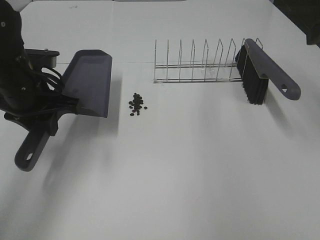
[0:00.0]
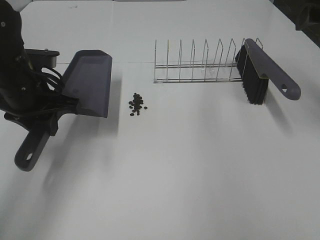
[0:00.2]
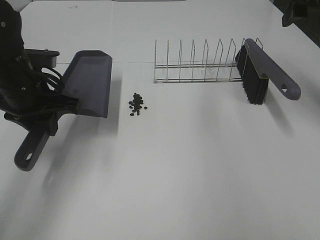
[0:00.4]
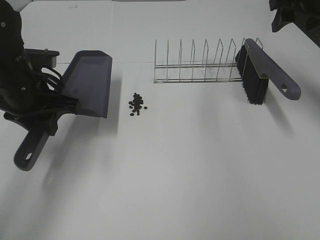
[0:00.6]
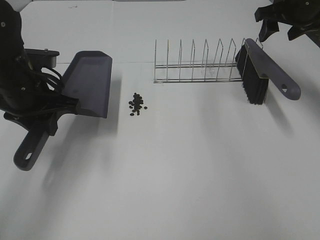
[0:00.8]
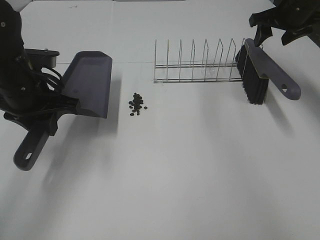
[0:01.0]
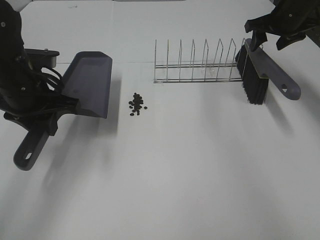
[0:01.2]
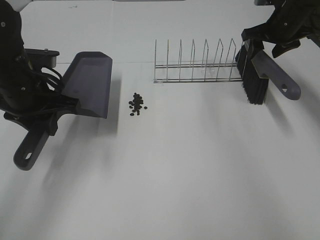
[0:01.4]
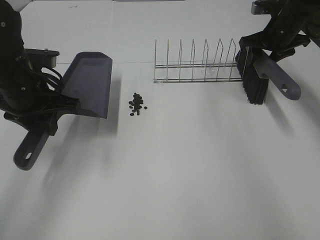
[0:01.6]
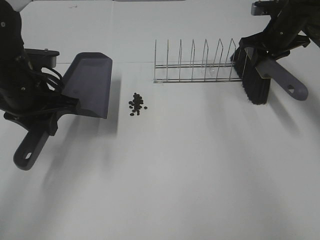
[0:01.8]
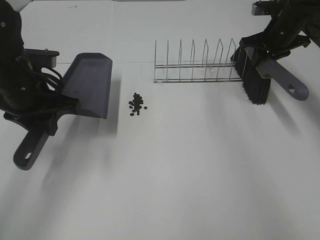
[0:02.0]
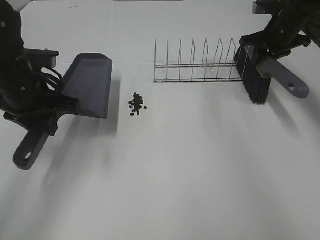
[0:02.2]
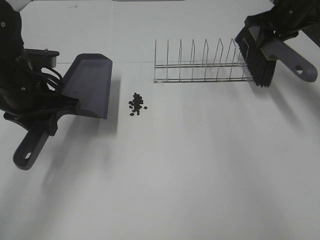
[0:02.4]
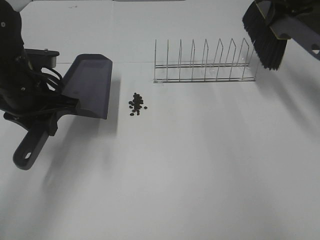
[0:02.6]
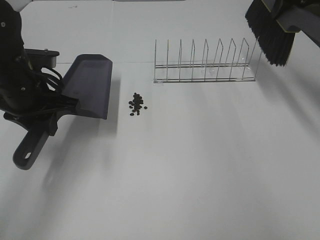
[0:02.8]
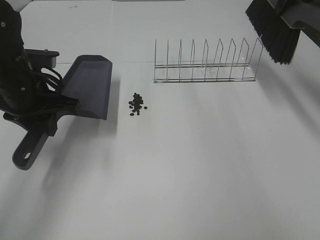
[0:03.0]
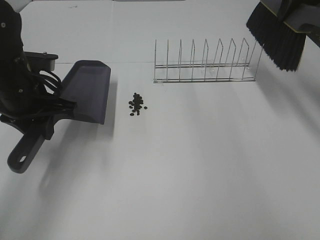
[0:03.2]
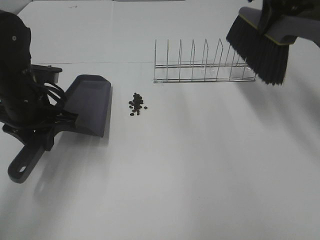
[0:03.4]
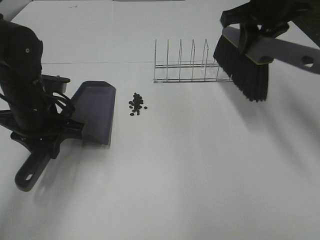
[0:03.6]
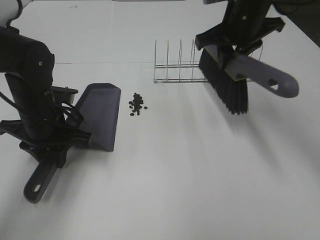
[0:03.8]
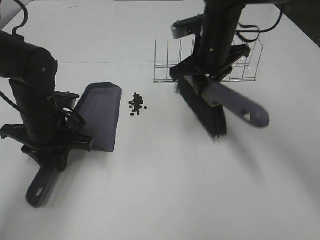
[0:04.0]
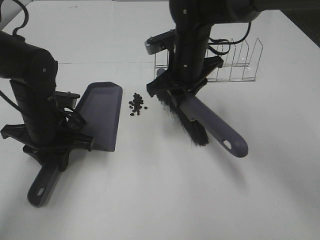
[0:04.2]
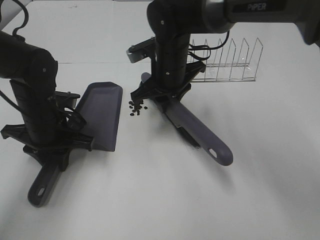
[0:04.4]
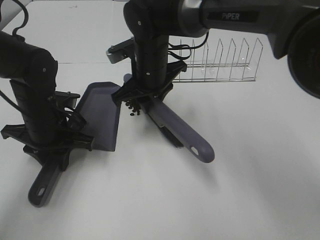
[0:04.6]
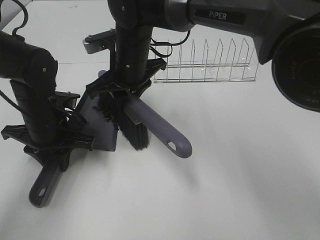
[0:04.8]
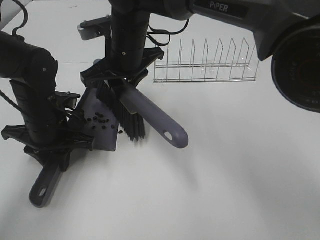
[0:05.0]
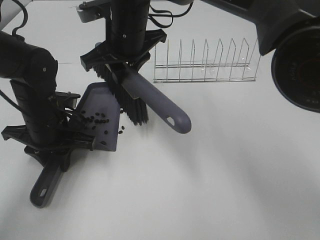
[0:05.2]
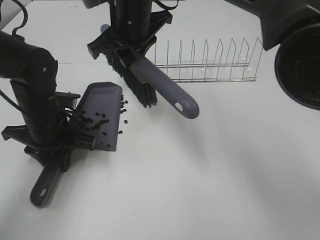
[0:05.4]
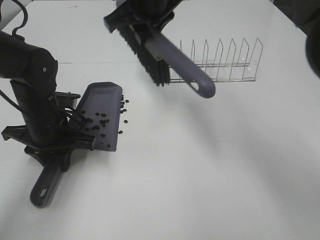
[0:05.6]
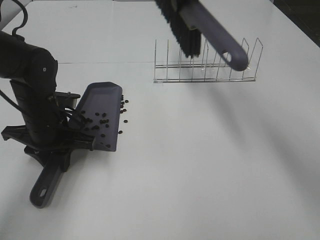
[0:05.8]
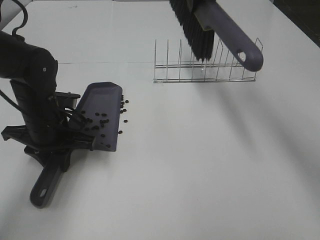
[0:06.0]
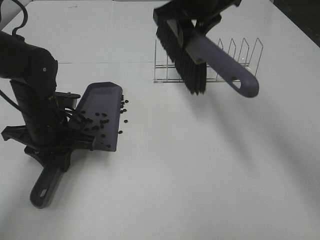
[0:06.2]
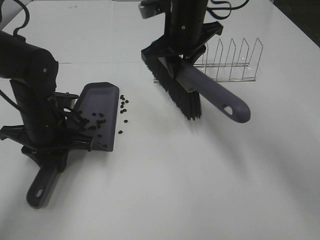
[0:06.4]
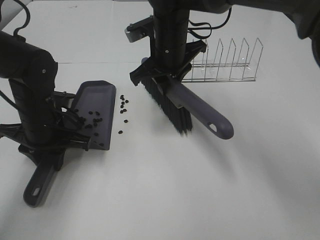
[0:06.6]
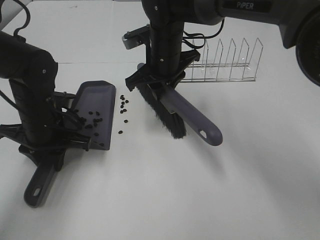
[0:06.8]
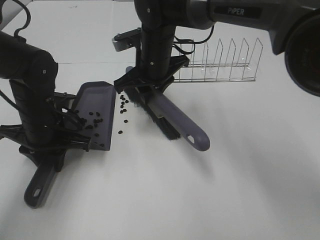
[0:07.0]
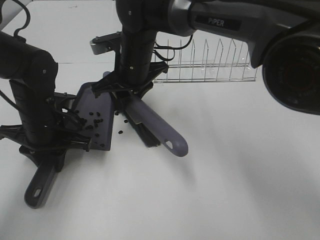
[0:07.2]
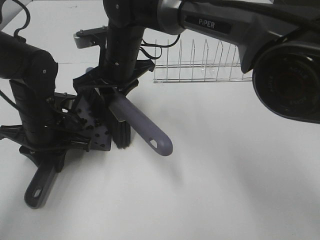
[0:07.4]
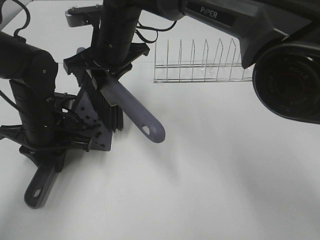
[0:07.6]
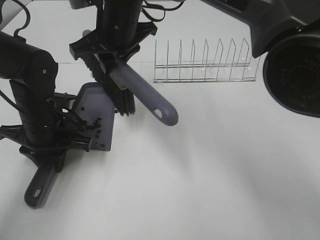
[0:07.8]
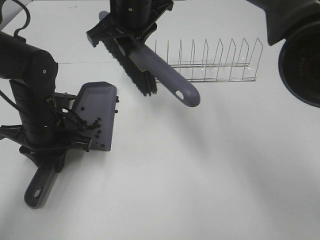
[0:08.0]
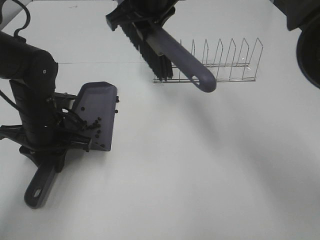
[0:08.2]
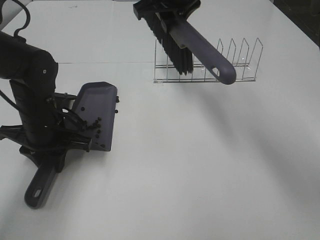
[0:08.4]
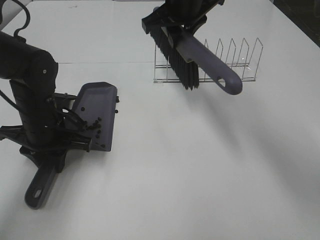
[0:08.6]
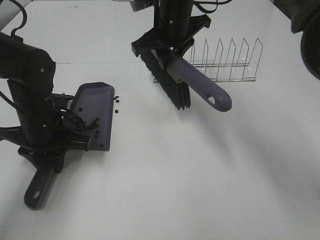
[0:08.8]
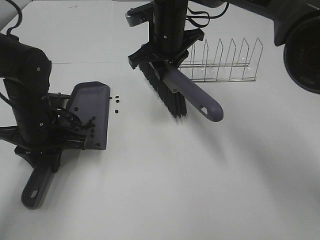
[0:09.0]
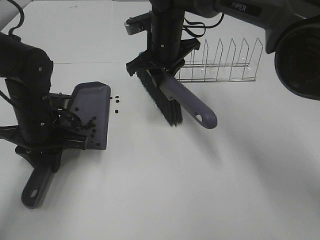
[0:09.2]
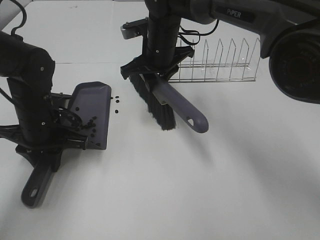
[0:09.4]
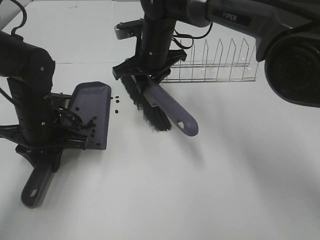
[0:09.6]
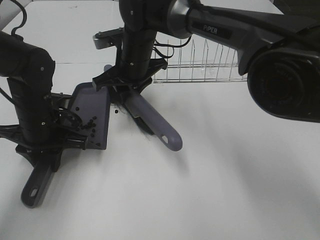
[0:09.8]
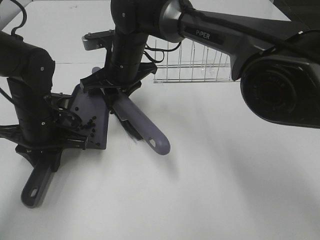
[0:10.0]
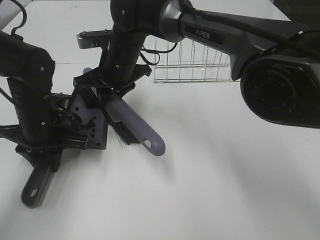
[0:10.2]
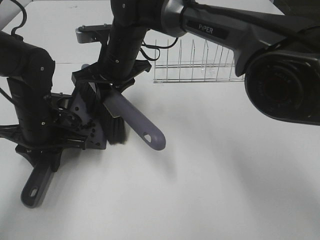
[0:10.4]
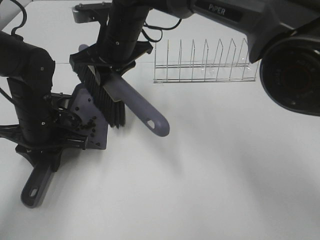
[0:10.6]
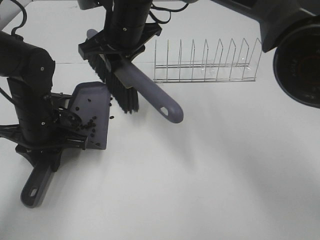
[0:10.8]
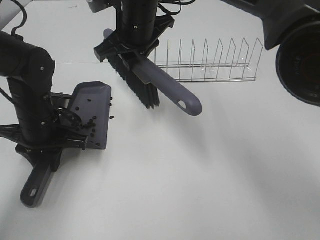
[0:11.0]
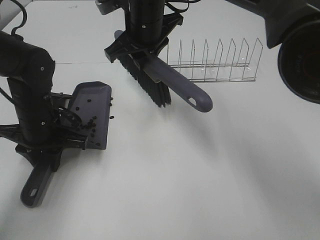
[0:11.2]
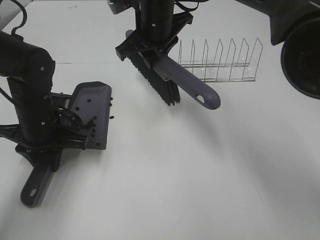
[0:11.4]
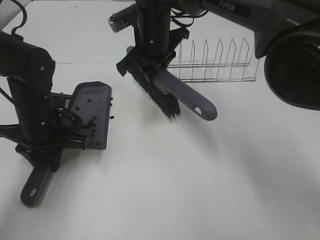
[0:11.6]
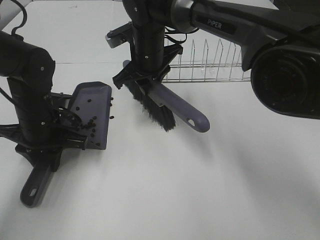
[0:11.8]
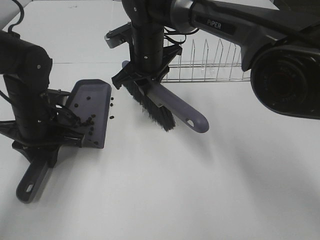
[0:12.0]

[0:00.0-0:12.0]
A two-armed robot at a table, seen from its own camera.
Task of the whole recording: Sweep Coffee Bean.
Step, 0:00.0 to 0:01.4: Right hand:grab the broom.
0:00.0 to 0:01.6: The right gripper heads forward and downward, covering approximately 25 cm.
0:01.6 to 0:03.0: The right gripper travels upward by some 15 cm, and closes its fingers.
0:03.0 to 0:04.4: The right gripper heads to the left and downward, covering roughly 30 cm. The left gripper is displaced downward by roughly 10 cm.
0:04.4 to 0:06.0: The right gripper travels upward and to the right by approximately 20 cm.
0:06.0 to 0:07.6: The right gripper is displaced to the left and downward by roughly 20 cm.
0:07.6 to 0:09.0: The right gripper is displaced to the right by approximately 10 cm.
0:09.0 to 0:10.4: The right gripper shifts about 10 cm to the left.

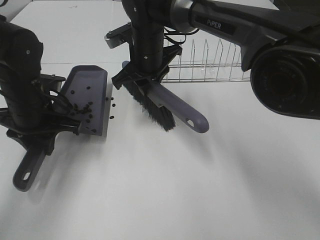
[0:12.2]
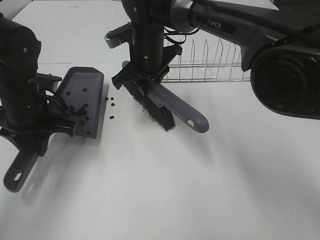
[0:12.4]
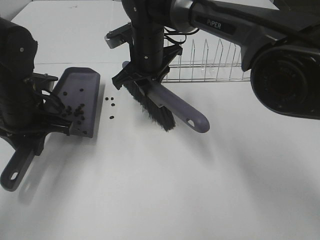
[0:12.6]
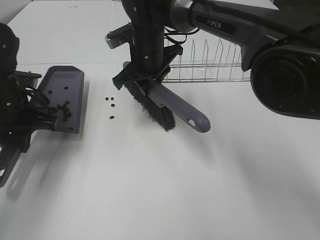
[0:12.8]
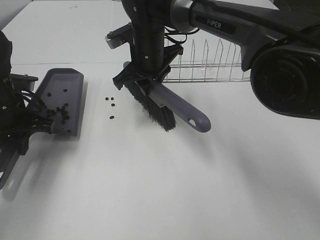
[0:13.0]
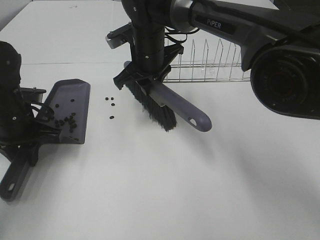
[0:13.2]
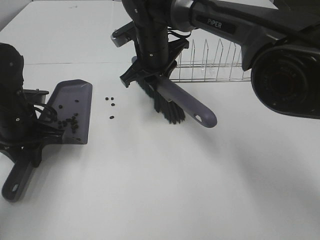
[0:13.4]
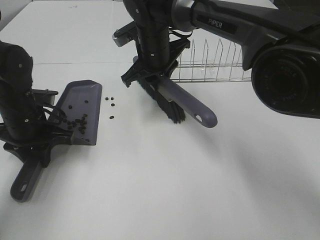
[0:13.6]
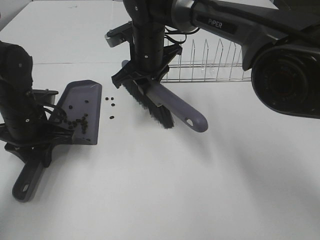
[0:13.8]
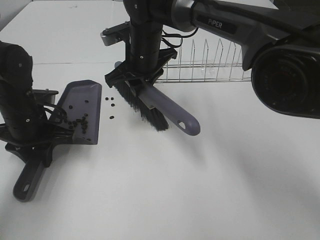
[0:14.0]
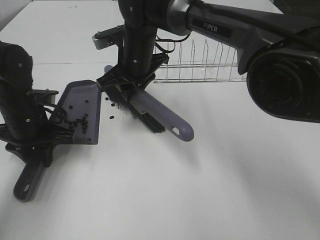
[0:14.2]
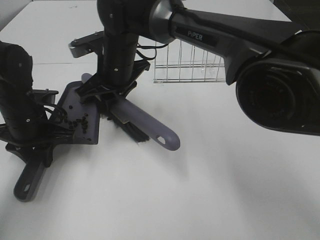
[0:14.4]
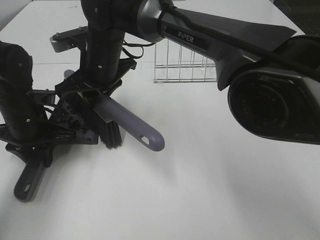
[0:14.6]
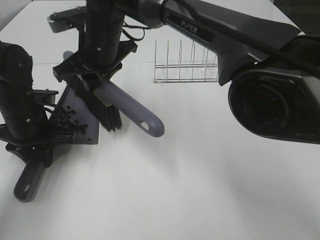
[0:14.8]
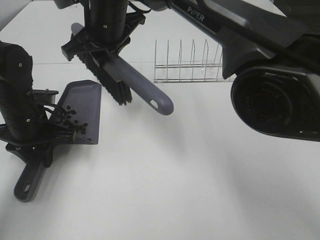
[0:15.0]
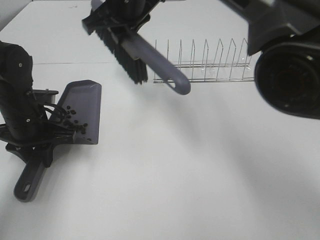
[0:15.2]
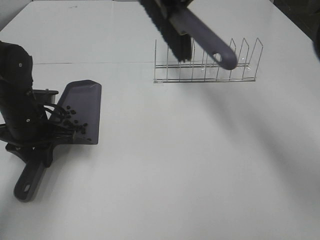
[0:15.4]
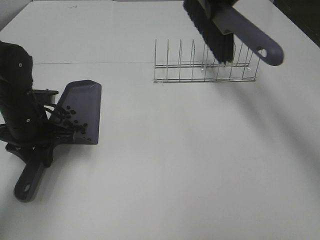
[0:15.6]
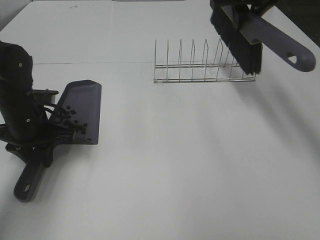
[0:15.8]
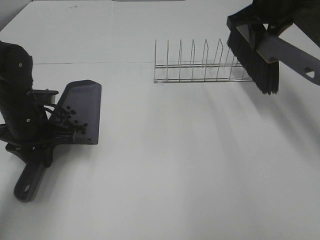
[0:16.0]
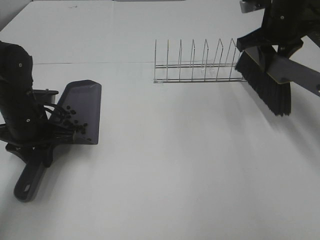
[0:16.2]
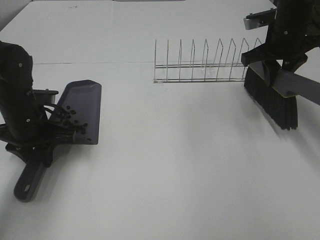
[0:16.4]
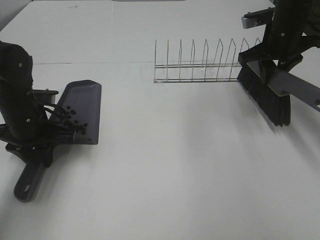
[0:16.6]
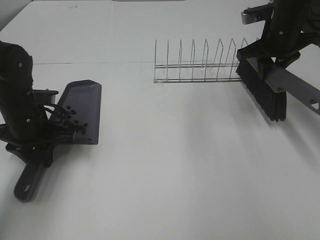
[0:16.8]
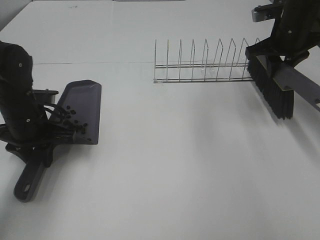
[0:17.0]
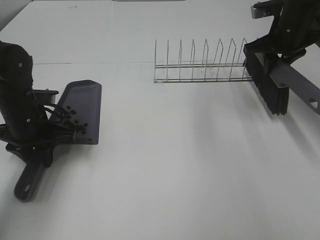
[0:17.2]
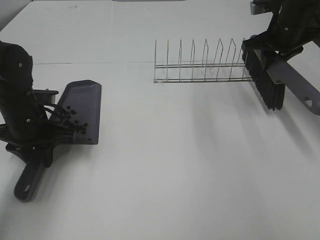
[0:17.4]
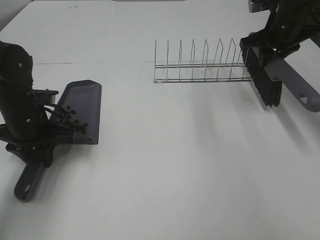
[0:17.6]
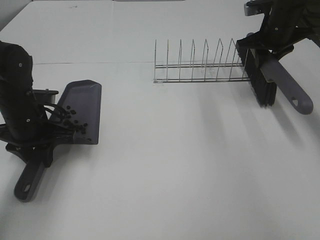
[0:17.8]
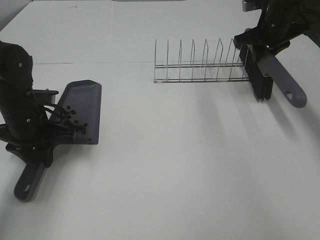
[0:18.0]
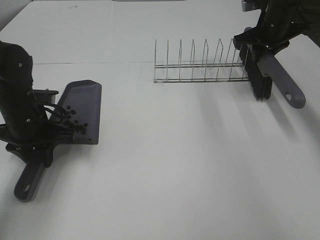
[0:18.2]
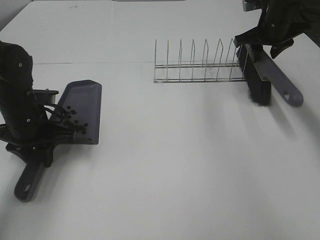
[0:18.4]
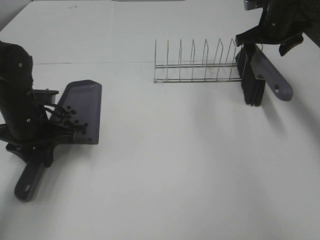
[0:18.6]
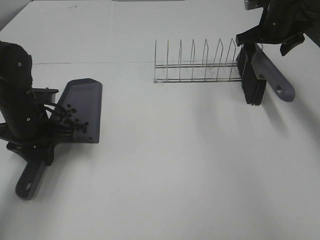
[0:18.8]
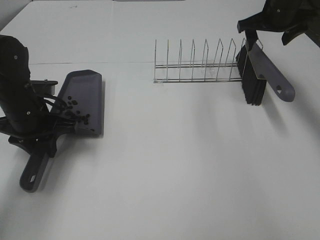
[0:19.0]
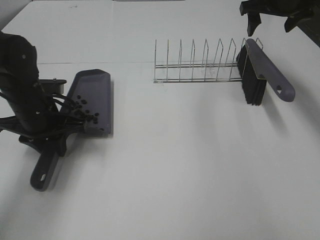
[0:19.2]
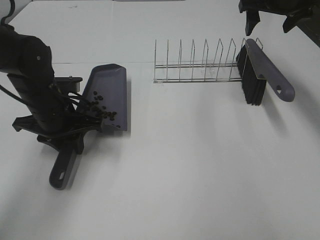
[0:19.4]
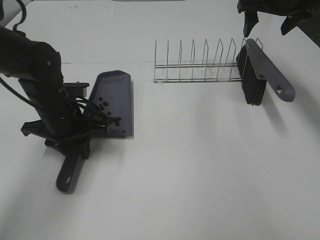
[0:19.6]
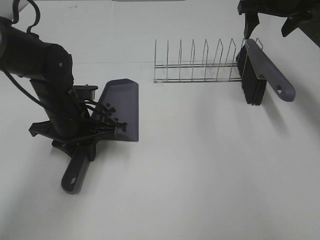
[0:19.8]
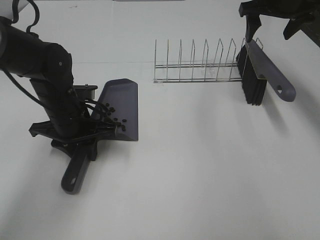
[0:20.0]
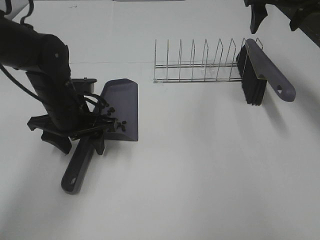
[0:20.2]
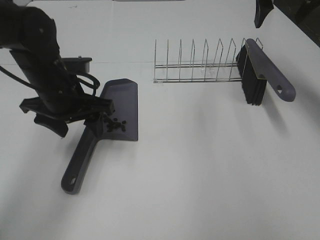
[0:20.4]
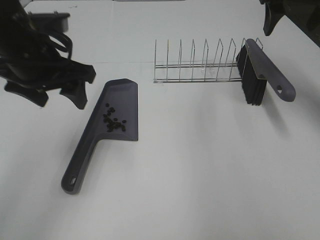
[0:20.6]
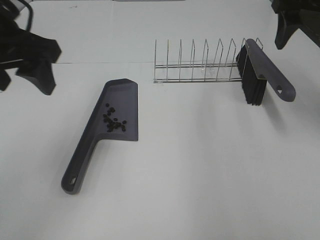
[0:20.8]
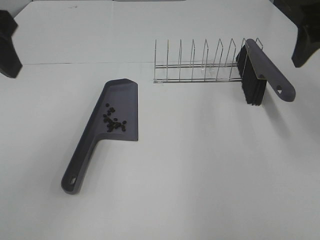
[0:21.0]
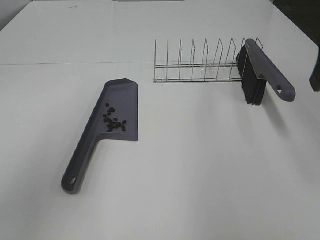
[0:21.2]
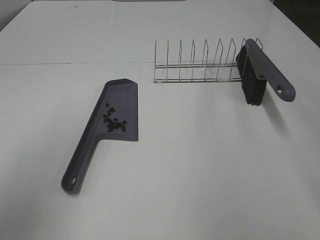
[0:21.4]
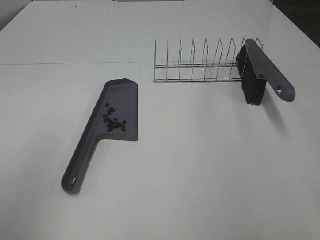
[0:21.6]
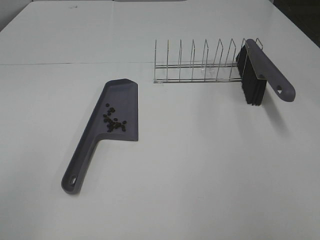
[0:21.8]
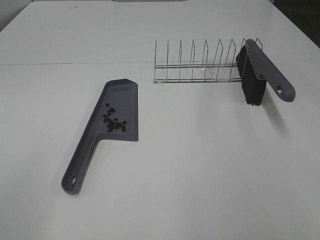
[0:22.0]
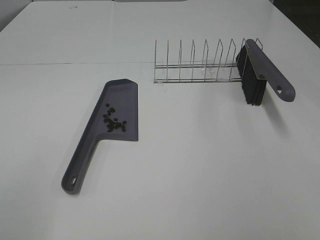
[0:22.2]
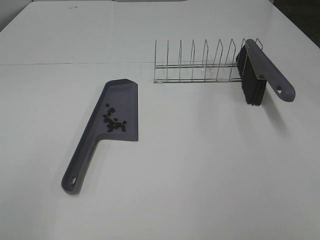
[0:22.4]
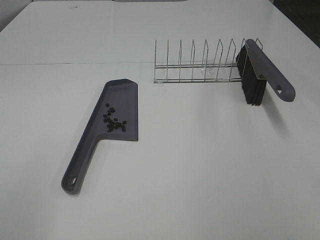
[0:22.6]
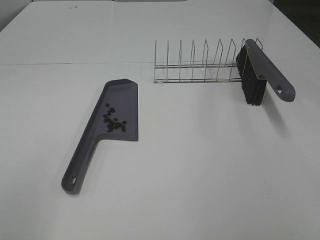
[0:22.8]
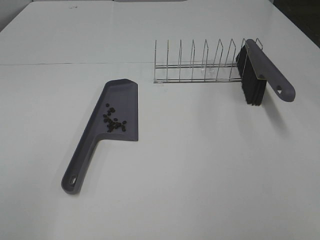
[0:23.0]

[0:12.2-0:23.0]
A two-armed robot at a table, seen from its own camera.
Task of the whole recording: Sweep Coffee Bean.
Step, 0:12.2 to 0:14.8: Right hand:sweep the coffee beans into the dustpan.
Step, 0:15.0 to 0:18.8: Right hand:place the broom on the rack.
Step, 0:19.0 to 0:20.4: Left hand:place the dustpan on the table.
0:12.2 to 0:13.8: The grippers make only small movements.
0:13.8 to 0:15.2: The right gripper travels upward by roughly 10 cm.
0:15.2 to 0:16.8: The right gripper shifts roughly 30 cm to the right.
0:16.8 to 0:18.4: The right gripper shifts roughly 5 cm forward.
0:18.4 to 0:20.0: The left gripper is displaced to the right by some 5 cm, while the right gripper heads upward, covering approximately 10 cm, and opens.
0:20.0 to 0:21.4: The left gripper heads upward, backward and to the left, covering approximately 30 cm, and opens up, while the right gripper heads backward, covering some 30 cm.
0:21.4 to 0:23.0: The left gripper travels backward by some 10 cm.
